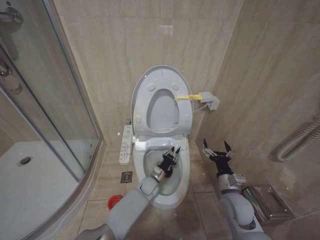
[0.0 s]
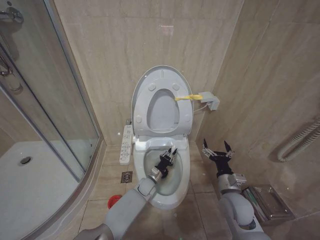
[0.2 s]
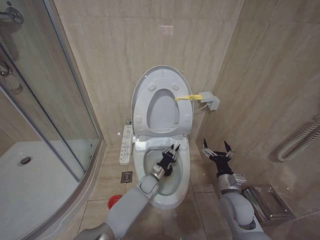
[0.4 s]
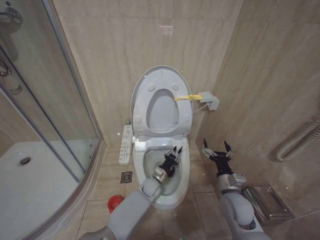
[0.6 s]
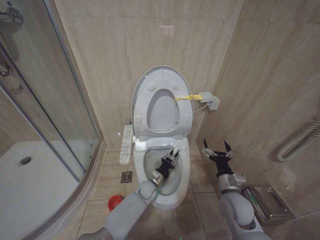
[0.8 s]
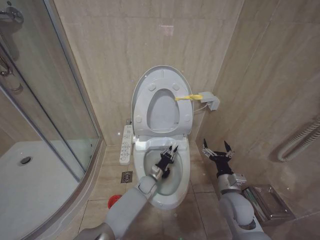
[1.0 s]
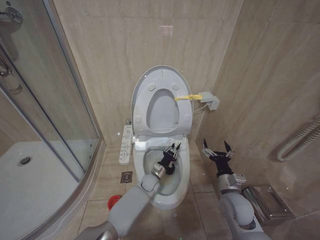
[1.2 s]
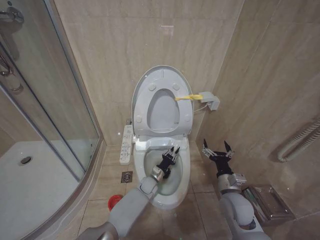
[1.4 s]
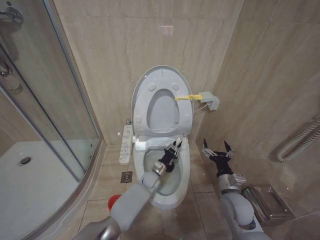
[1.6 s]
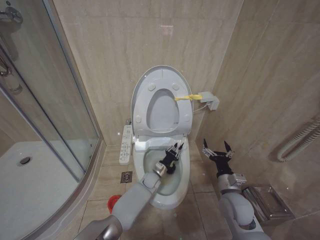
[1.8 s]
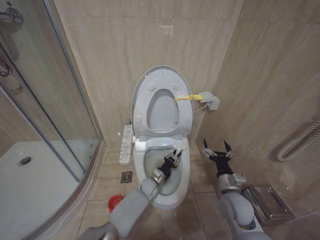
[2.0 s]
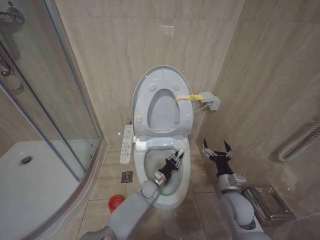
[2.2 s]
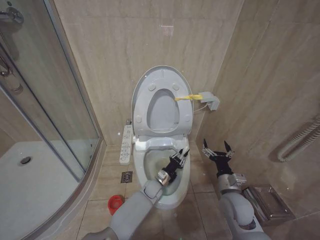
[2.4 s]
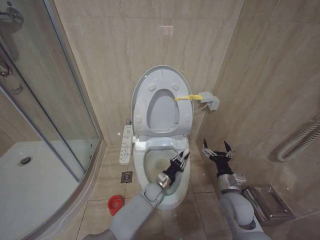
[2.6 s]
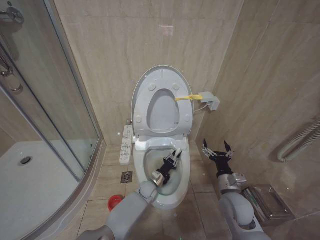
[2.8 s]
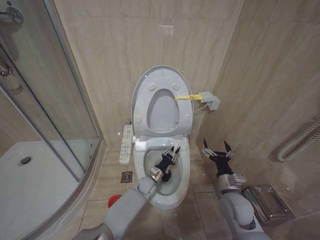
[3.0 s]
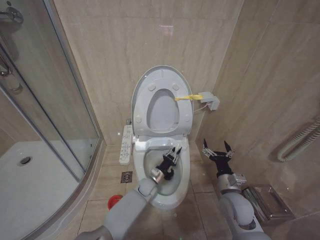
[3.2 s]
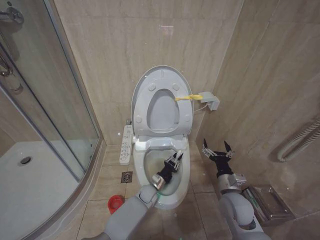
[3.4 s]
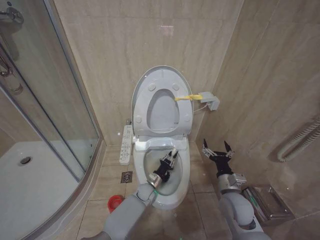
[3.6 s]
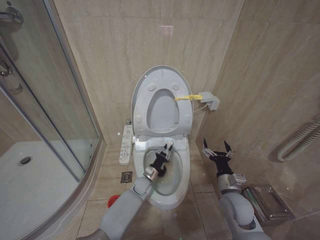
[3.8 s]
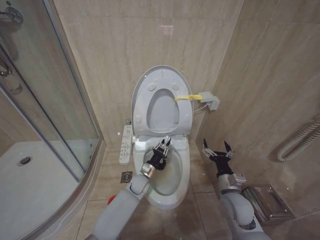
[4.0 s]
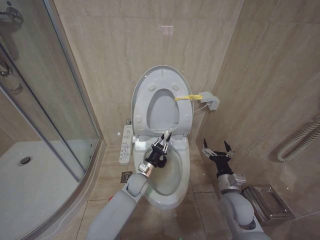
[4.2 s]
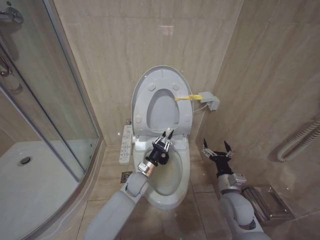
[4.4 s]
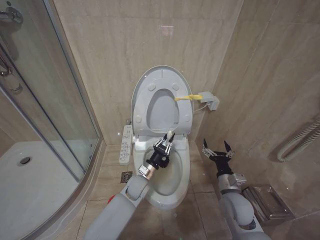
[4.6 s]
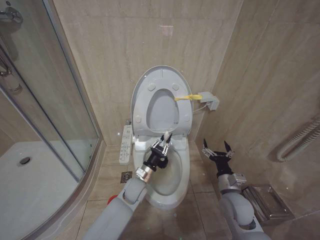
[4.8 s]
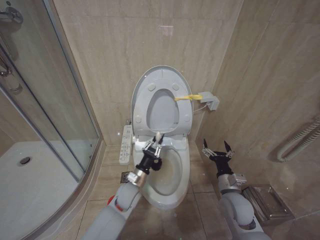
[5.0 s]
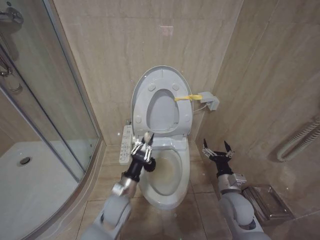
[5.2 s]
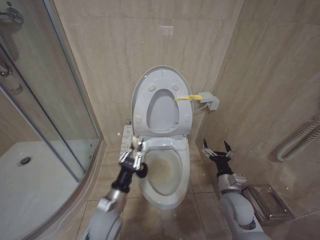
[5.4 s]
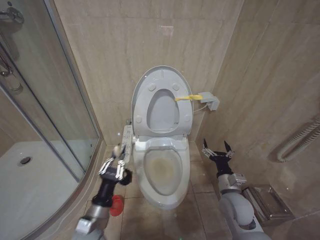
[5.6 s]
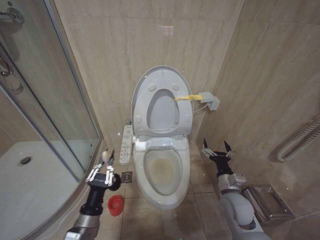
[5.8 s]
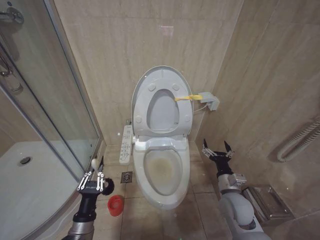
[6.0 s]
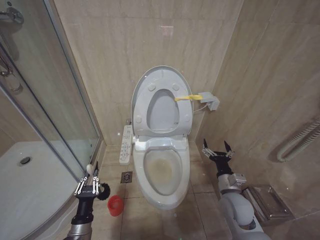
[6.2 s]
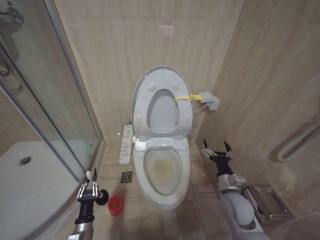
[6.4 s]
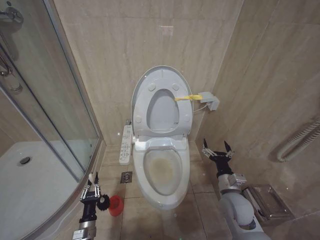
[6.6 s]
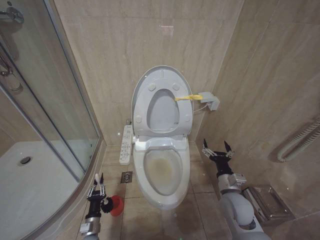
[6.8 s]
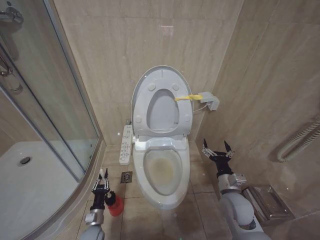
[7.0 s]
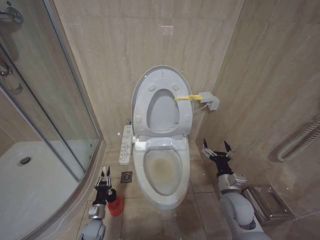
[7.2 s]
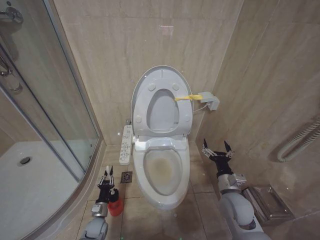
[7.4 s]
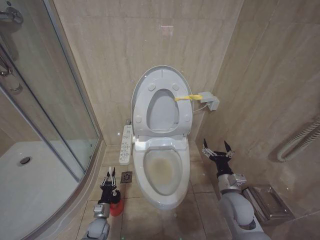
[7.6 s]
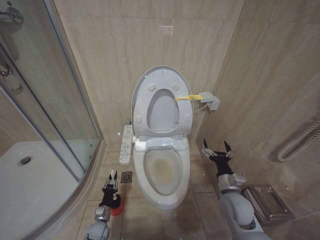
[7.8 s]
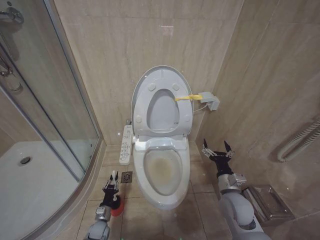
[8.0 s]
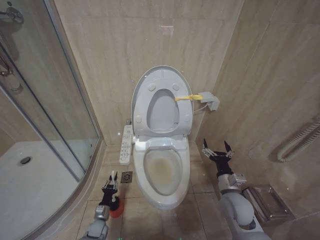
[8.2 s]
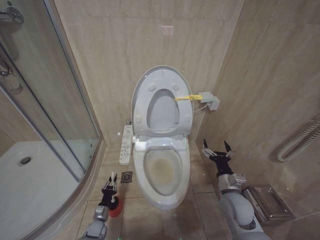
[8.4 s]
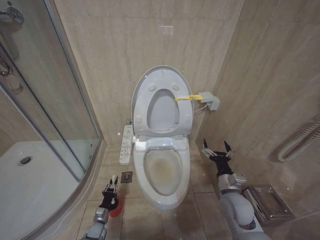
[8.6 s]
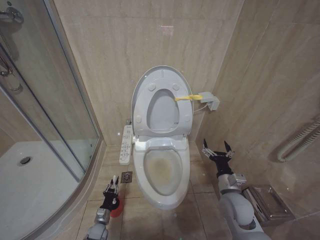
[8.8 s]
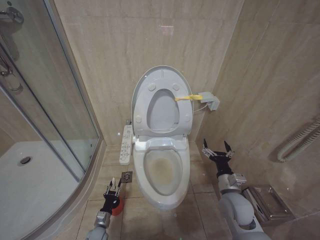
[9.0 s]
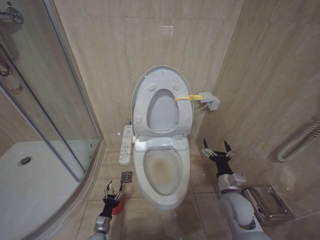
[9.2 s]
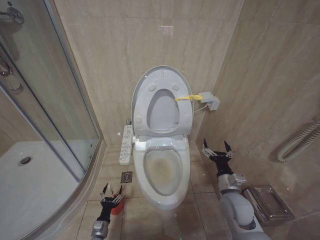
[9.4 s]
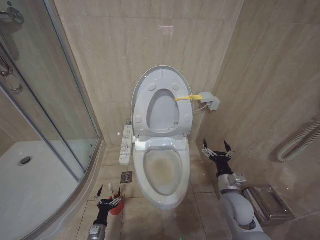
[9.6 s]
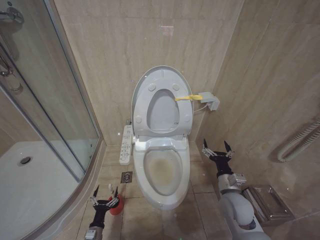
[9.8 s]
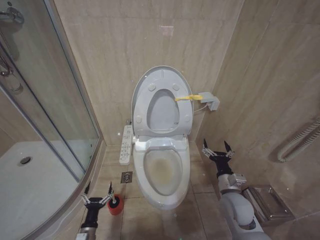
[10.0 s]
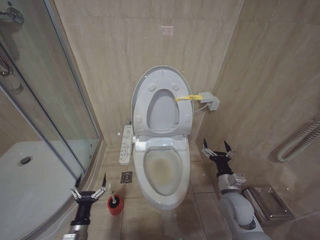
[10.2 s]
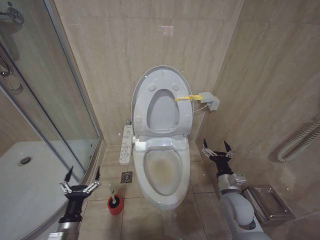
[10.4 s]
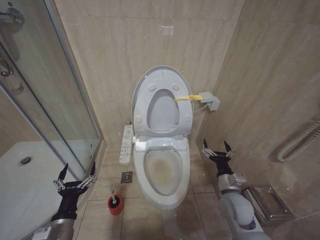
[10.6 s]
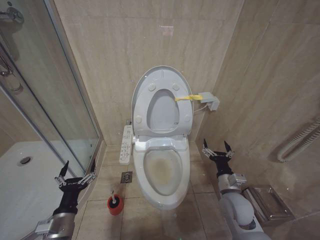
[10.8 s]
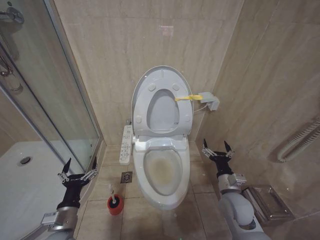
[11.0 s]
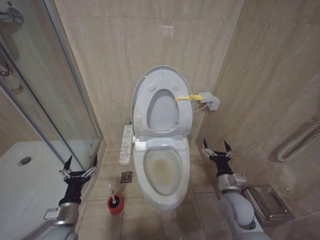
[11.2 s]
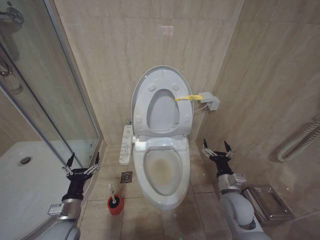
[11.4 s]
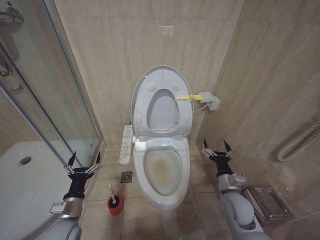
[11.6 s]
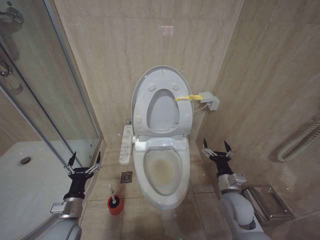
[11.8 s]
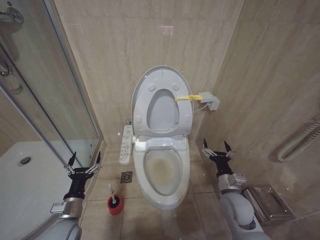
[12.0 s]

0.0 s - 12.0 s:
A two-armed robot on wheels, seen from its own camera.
Task of the whole recording: Open the toilet lid, clean the toilet bowl with a toilet brush, close the toilet lid, and flush.
0.0 s - 3.0 s: The grippers make only small movements.
3.0 s - 4.4 s: The left gripper goes approximately 10 cm upward.
4.4 s - 6.0 s: The left gripper moves backward and to the left, about 30 cm.
6.0 s - 7.6 s: The left gripper shifts roughly 25 cm downward and forward.
7.6 s - 9.0 s: There are only small adjustments of the grippers.
9.0 s - 10.4 s: The left gripper travels upward and backward by roughly 25 cm, and opens up.
10.4 s - 12.0 s: The left gripper shifts about 5 cm forward.

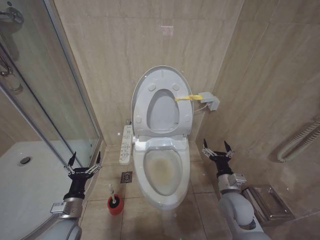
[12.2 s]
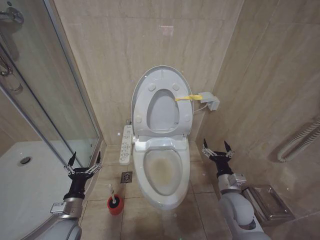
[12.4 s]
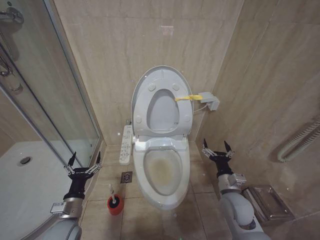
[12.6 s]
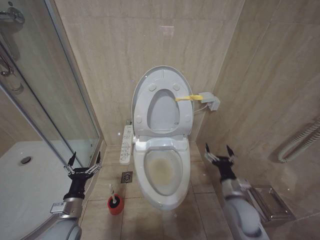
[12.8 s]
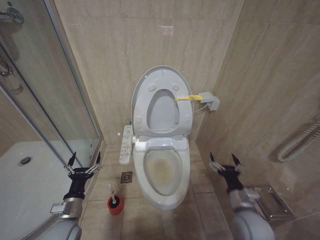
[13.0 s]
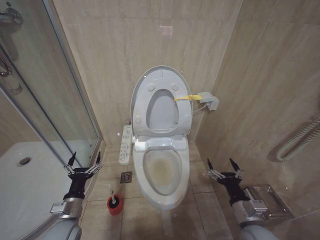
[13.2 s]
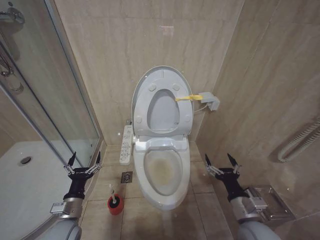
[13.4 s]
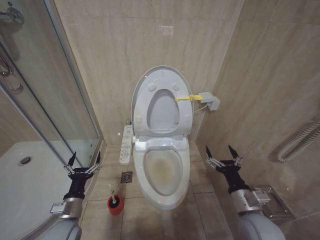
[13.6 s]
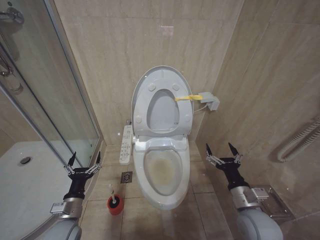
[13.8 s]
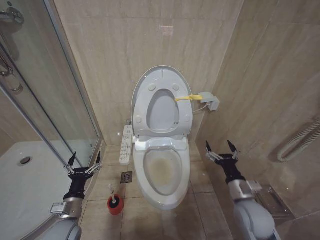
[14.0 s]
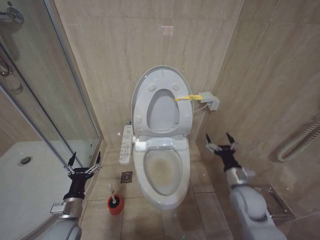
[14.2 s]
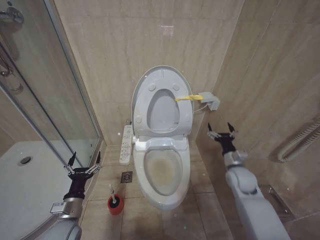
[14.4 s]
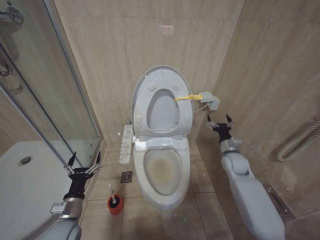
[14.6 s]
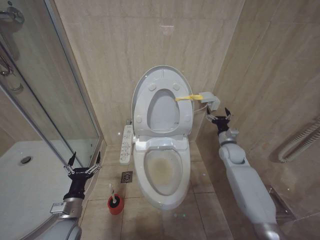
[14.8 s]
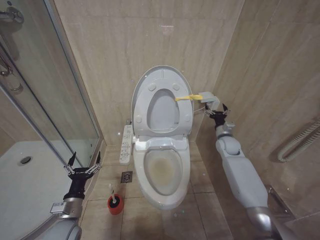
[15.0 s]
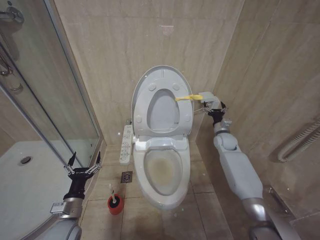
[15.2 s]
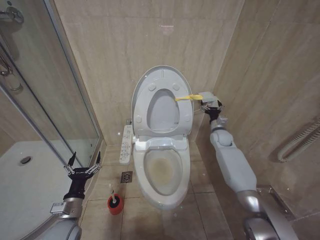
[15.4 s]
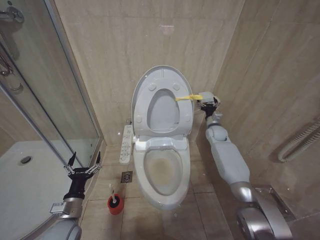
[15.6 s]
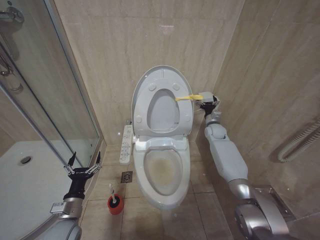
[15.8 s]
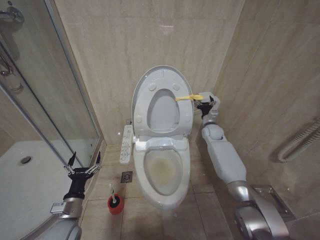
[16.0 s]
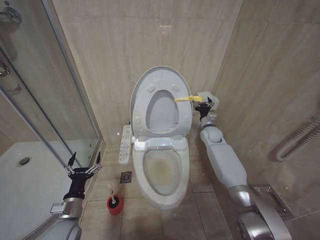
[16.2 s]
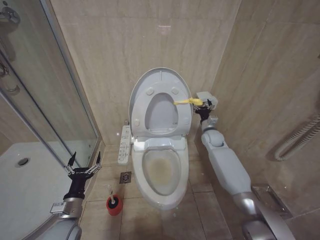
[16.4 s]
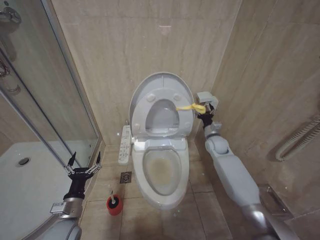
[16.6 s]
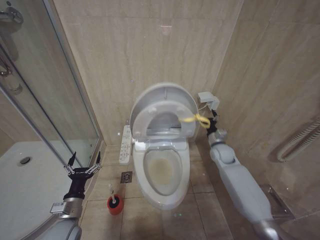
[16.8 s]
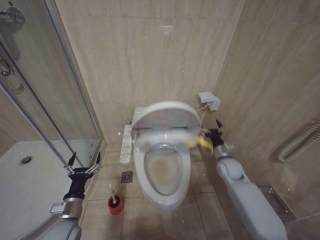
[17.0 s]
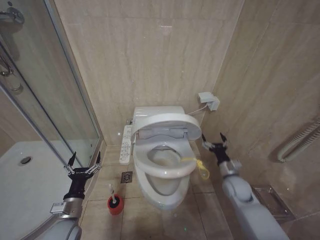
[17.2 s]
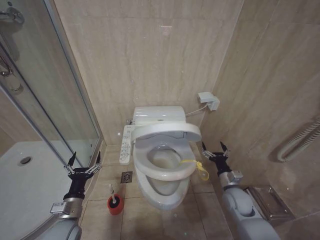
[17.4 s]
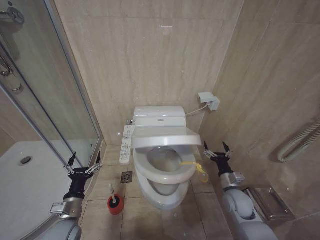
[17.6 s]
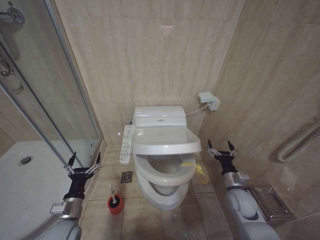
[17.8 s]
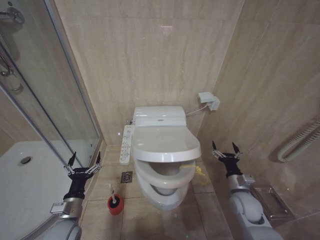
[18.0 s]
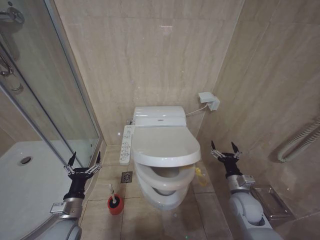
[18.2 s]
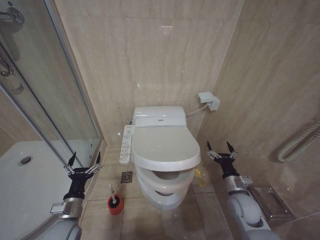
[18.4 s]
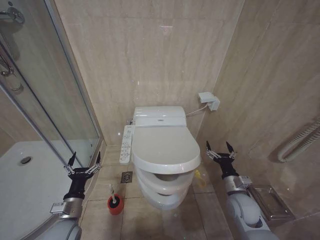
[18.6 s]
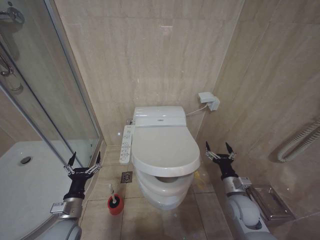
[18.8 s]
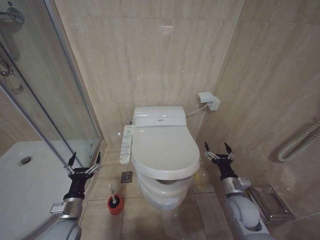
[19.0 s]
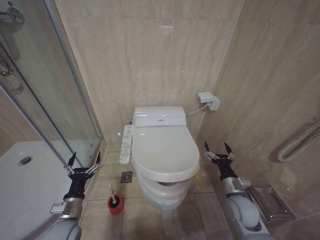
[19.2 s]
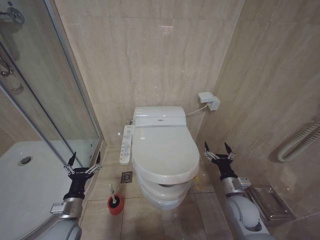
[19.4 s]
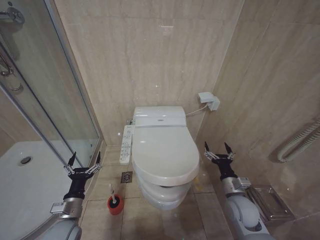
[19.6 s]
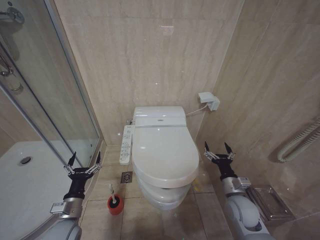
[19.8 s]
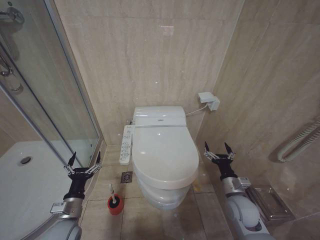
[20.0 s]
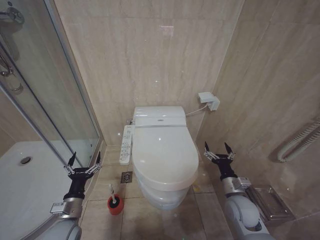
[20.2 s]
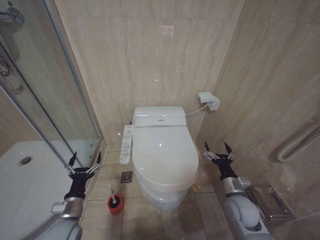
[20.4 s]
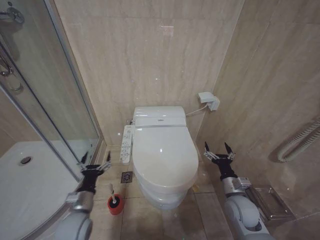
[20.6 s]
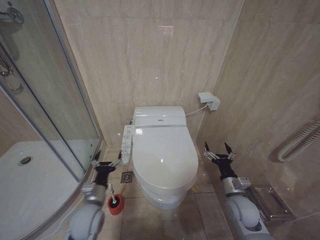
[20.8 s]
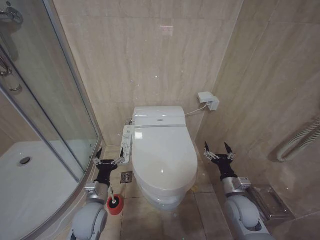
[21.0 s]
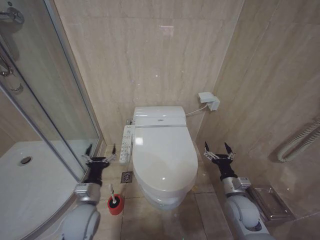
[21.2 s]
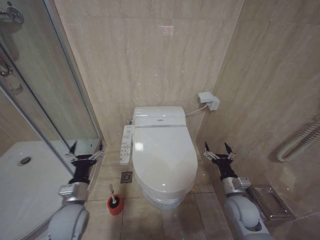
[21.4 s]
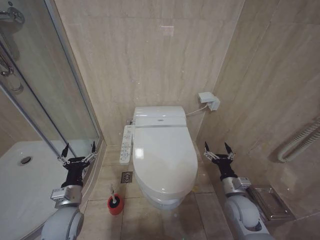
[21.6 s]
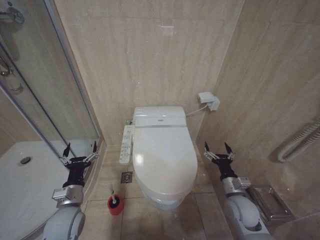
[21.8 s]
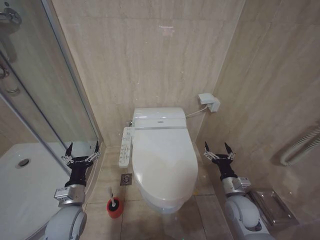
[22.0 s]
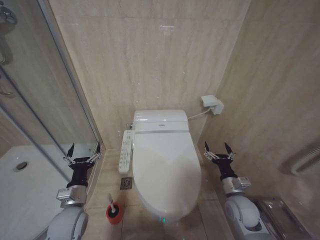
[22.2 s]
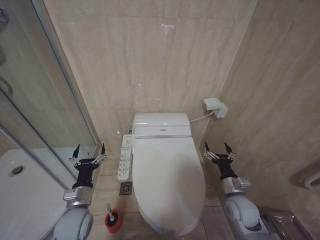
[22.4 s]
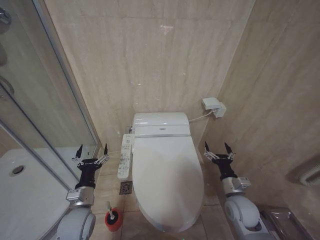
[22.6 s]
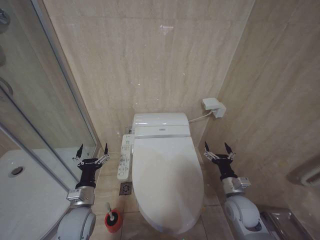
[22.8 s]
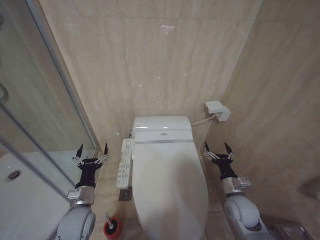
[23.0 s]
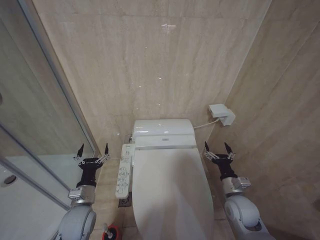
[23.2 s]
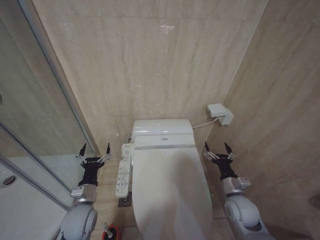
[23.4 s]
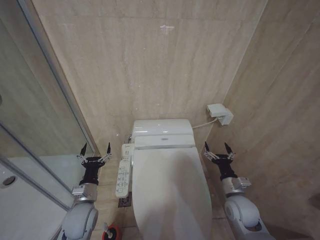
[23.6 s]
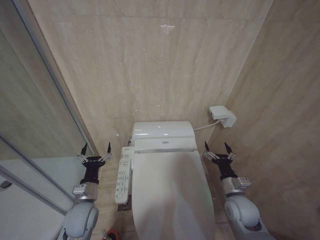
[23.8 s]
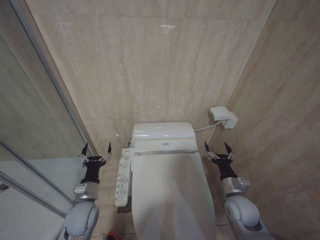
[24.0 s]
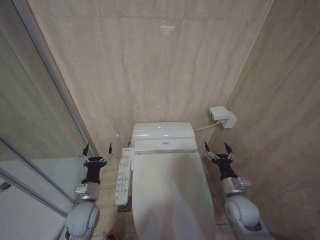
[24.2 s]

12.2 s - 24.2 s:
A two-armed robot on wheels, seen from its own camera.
Task of the whole recording: Open the toilet lid, clean the toilet bowl with a toilet brush, close the toilet lid, and flush.
12.2 s - 13.8 s: The right gripper is displaced backward by about 5 cm.
13.8 s - 15.2 s: The right gripper goes approximately 30 cm forward.
15.2 s - 16.6 s: The right gripper goes roughly 5 cm to the left.
16.6 s - 18.2 s: The right gripper goes approximately 25 cm backward.
18.2 s - 19.8 s: The grippers stay close to where they were, moving slightly.
19.8 s - 21.2 s: The left gripper travels to the right by some 5 cm.
21.2 s - 24.2 s: The grippers make only small movements.
